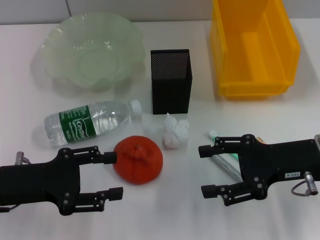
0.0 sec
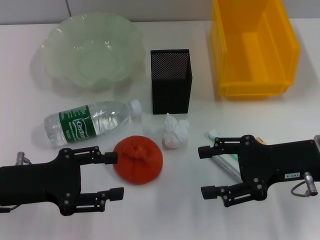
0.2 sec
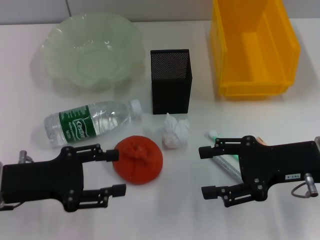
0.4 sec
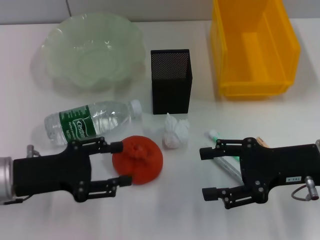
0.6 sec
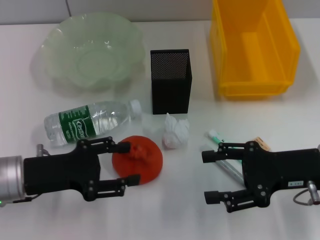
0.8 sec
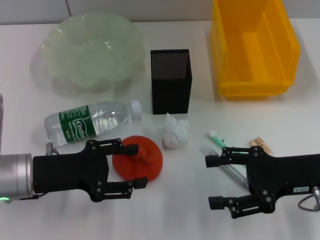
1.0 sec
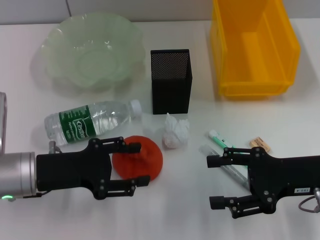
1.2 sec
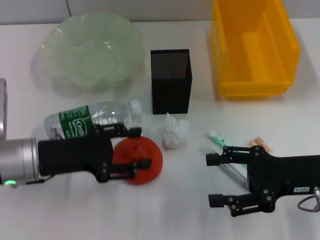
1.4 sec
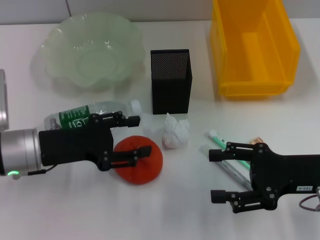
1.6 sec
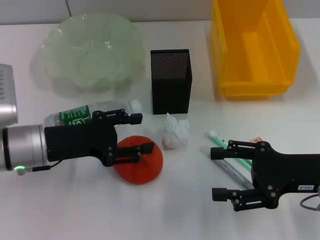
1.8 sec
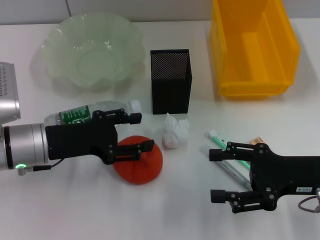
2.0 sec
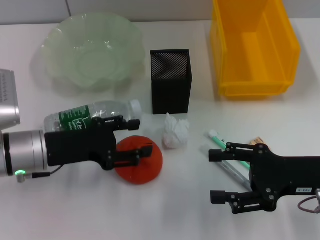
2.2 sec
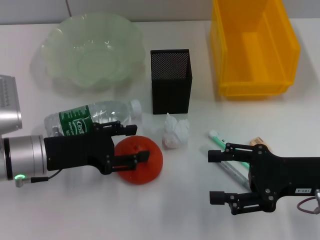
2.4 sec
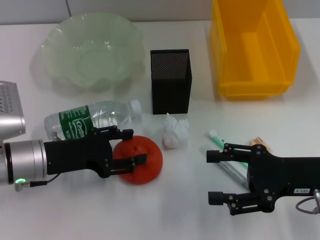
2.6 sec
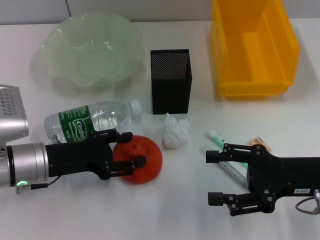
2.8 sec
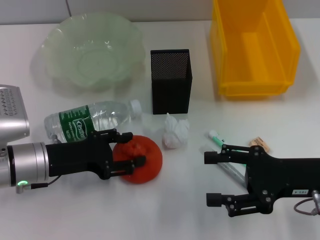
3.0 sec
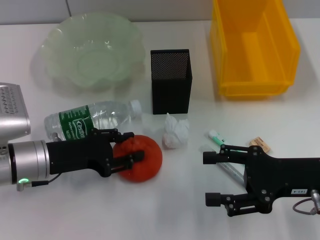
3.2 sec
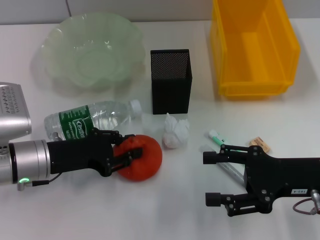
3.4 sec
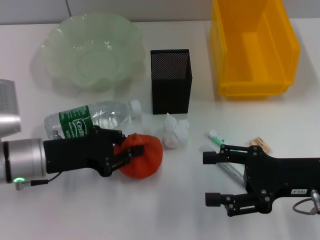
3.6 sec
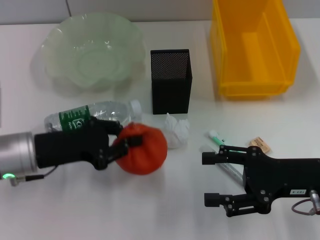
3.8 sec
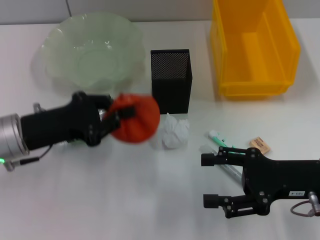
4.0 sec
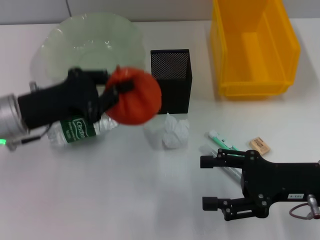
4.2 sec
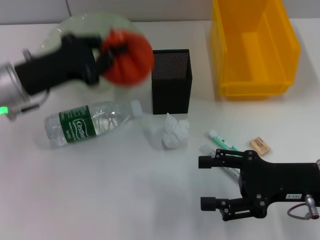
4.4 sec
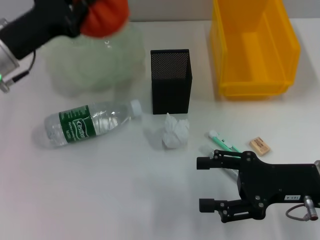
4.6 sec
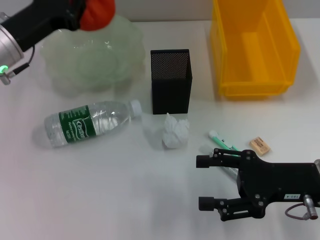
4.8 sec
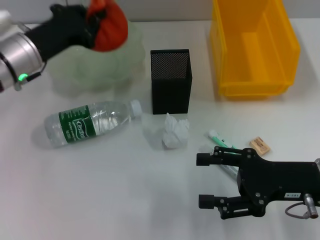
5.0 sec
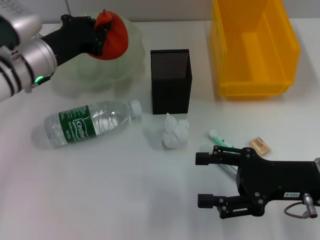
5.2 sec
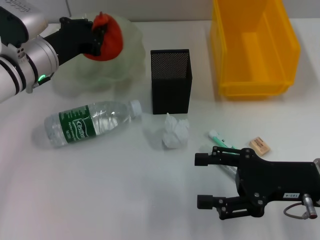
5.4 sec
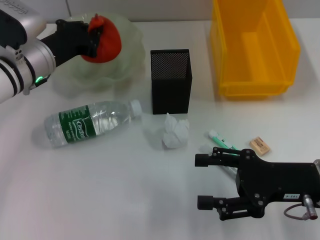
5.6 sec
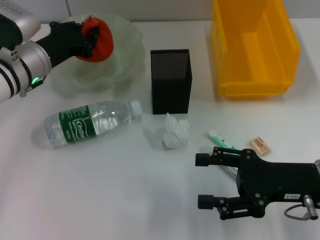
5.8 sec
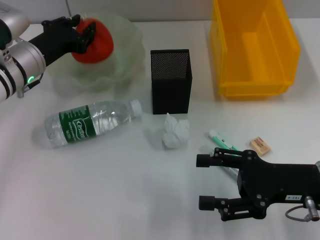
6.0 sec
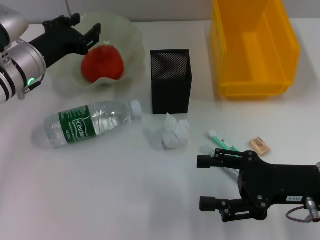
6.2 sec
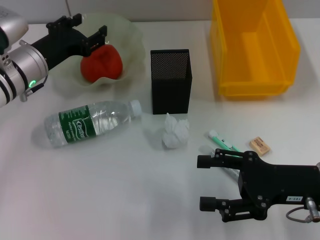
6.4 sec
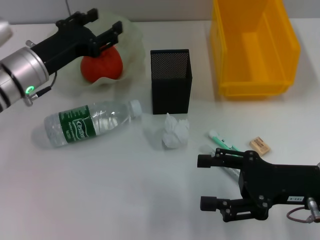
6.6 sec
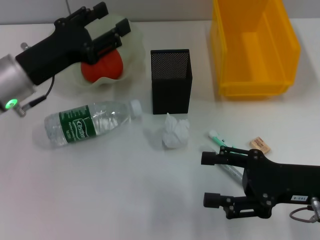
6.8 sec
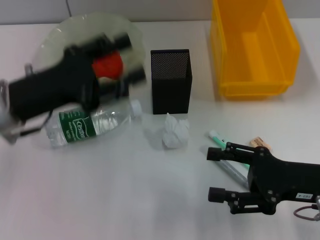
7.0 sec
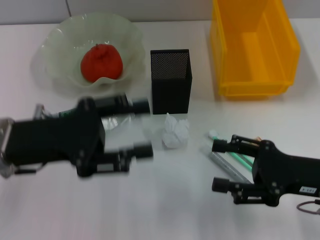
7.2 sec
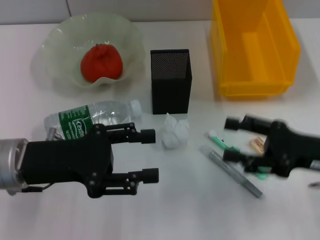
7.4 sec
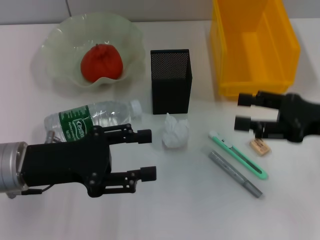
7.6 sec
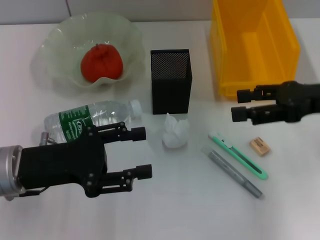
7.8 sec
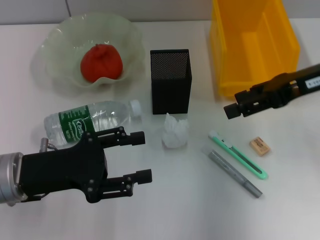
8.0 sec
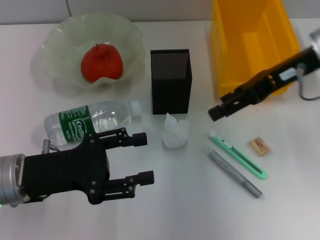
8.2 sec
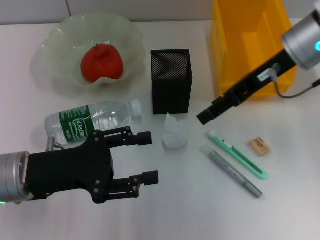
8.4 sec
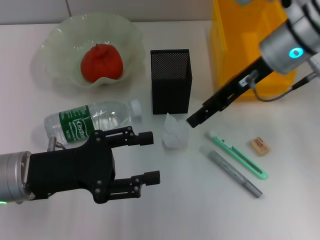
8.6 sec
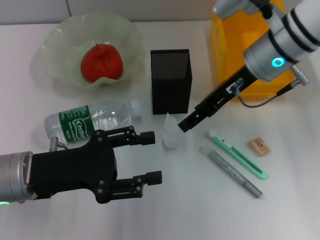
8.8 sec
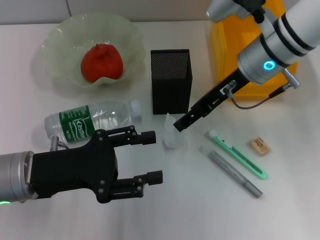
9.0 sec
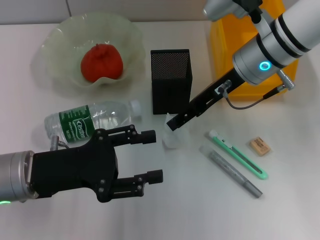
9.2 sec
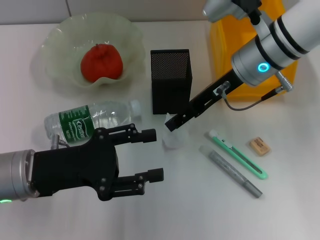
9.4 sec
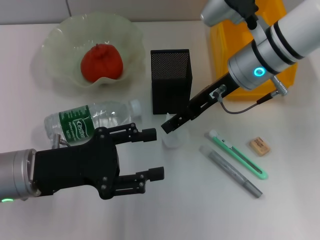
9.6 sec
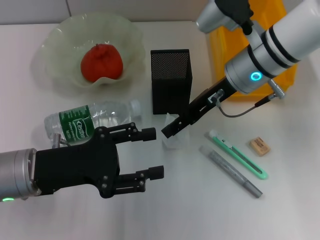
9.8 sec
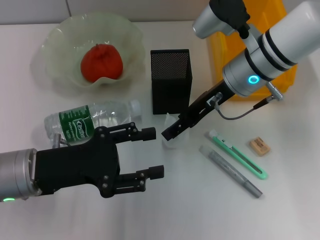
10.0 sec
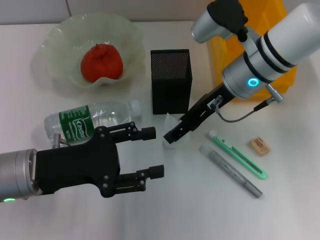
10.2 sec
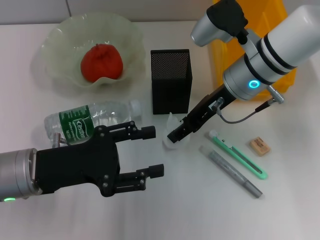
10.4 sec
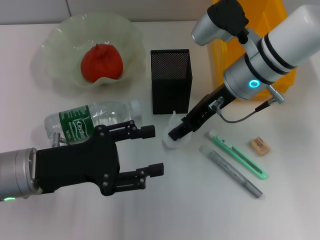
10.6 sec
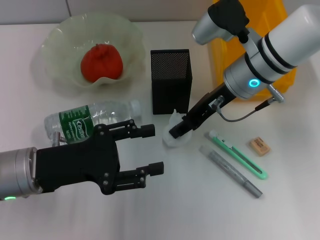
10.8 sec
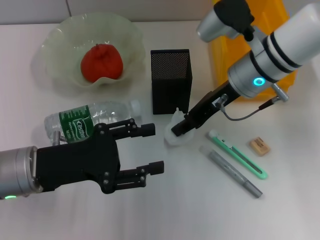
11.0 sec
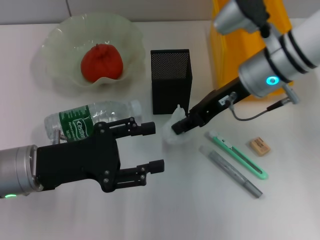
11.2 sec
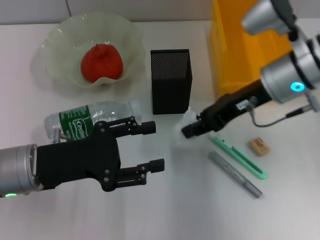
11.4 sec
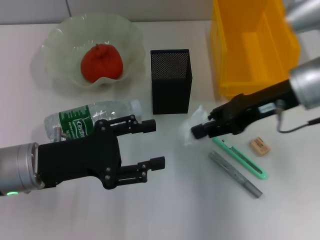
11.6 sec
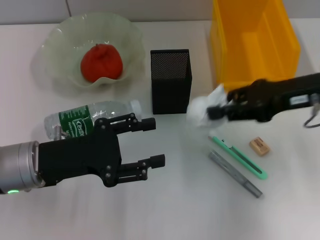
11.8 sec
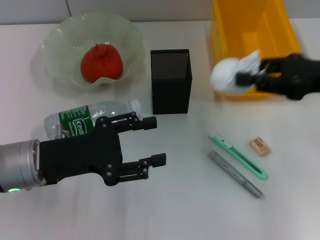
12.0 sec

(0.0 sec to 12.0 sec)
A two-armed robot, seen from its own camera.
Step, 0.0 sec - 3.4 sec: Grab the orange with the left hand.
Step, 3.6 sec - 6.4 sec: Place the orange into the fruit bowl with the left hand.
Step, 6.6 sec - 10.8 sec: Grab the paper ball with the right hand.
0.0 sec - 1.6 sec: The left gripper moves about 5 cm.
1.6 sec - 3.0 sec: There are only small adjustments of the grippers.
3.0 sec - 4.4 sec: The left gripper travels upward and forward by about 10 cm, and closes.
4.4 sec - 6.0 sec: The left gripper is displaced forward by about 5 cm.
6.0 sec - 7.6 sec: The left gripper heads backward, covering approximately 15 cm, and opens its fingers, while the right gripper is displaced upward by about 5 cm.
7.6 sec - 9.0 sec: The right gripper heads to the left and forward, covering about 20 cm.
9.0 sec - 10.4 sec: The grippers move only a little.
10.4 sec - 12.0 sec: The right gripper moves to the right and backward, approximately 20 cm, and closes its fingers.

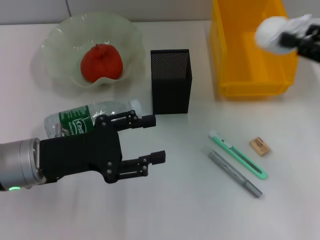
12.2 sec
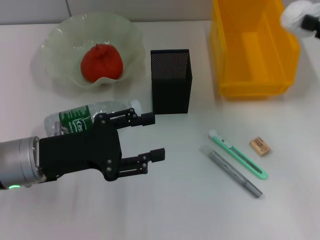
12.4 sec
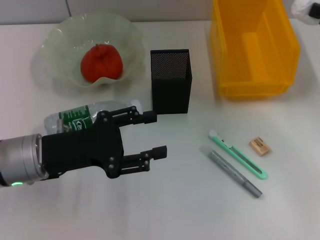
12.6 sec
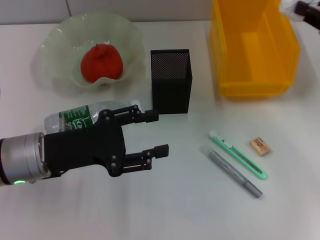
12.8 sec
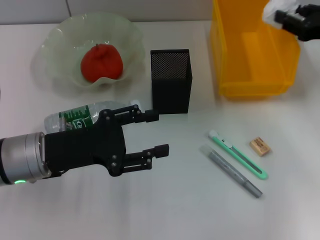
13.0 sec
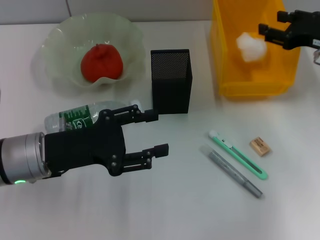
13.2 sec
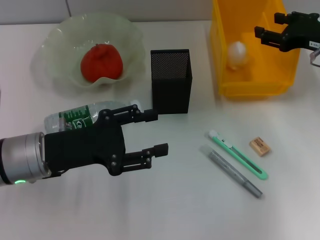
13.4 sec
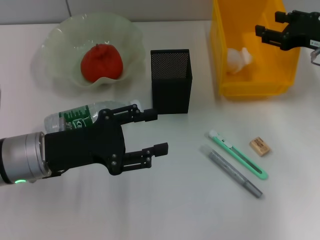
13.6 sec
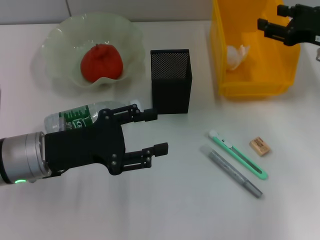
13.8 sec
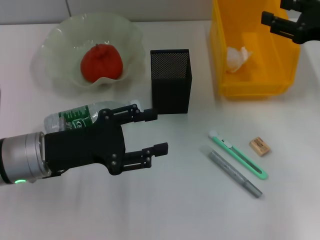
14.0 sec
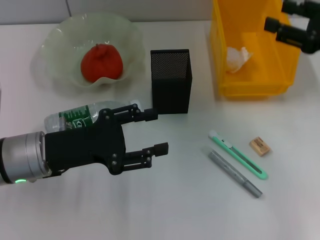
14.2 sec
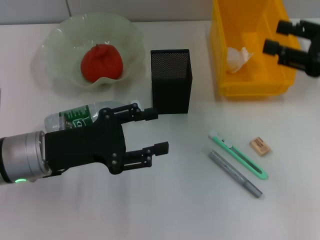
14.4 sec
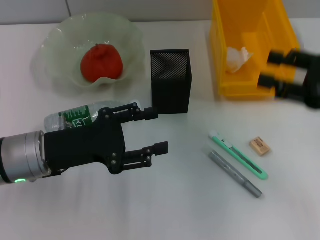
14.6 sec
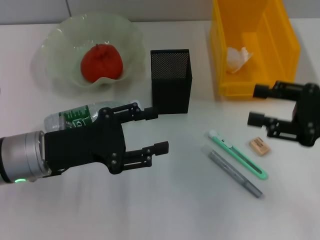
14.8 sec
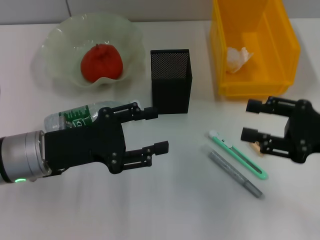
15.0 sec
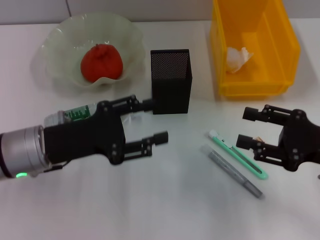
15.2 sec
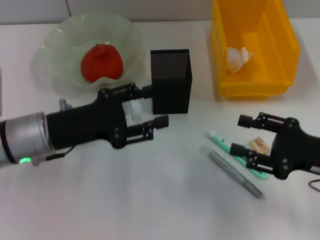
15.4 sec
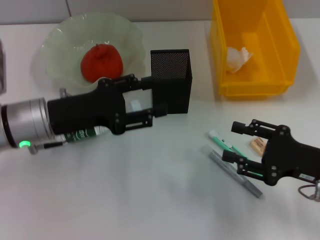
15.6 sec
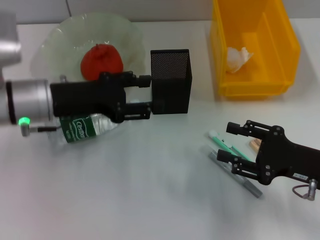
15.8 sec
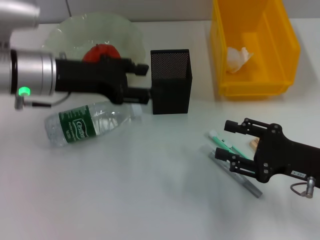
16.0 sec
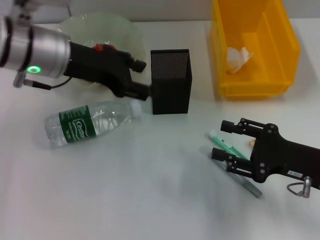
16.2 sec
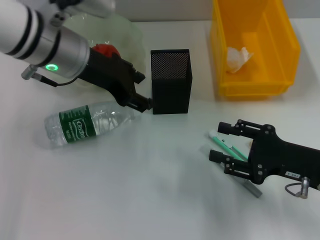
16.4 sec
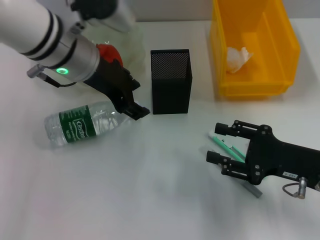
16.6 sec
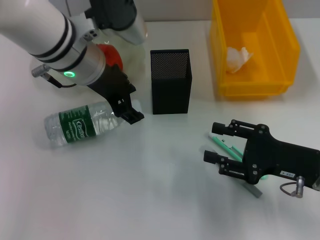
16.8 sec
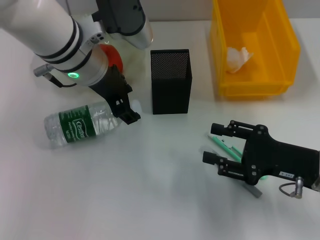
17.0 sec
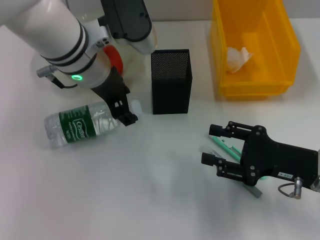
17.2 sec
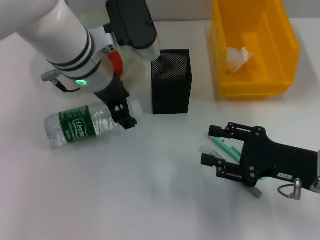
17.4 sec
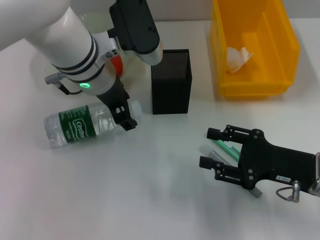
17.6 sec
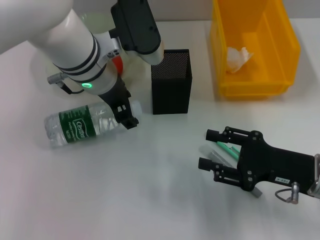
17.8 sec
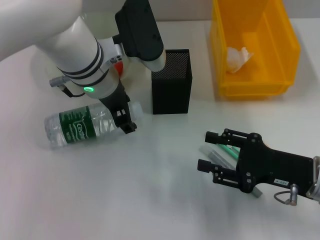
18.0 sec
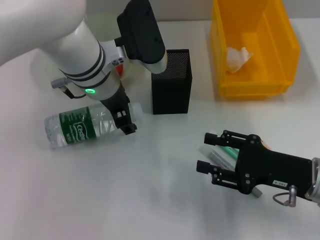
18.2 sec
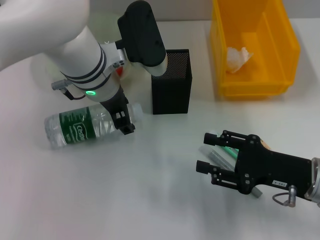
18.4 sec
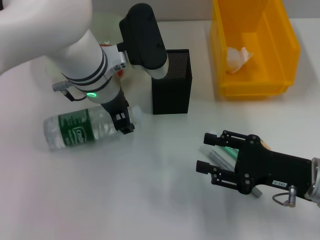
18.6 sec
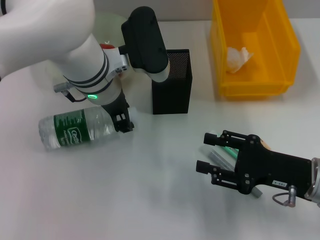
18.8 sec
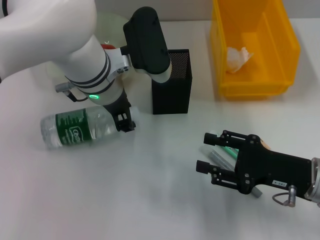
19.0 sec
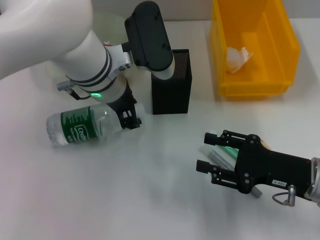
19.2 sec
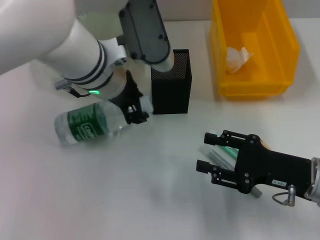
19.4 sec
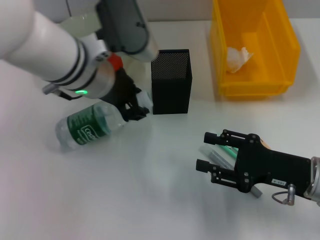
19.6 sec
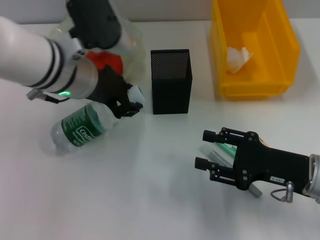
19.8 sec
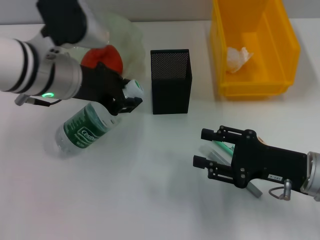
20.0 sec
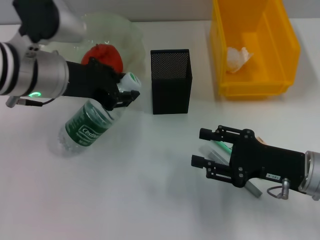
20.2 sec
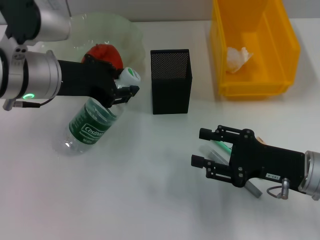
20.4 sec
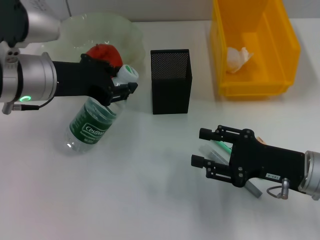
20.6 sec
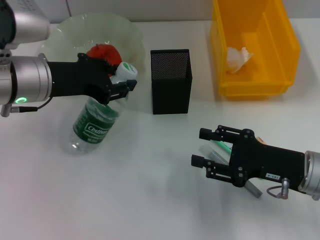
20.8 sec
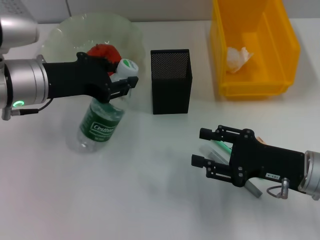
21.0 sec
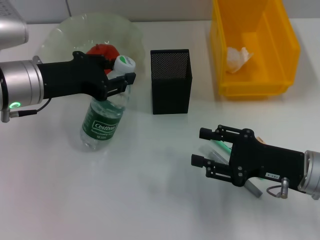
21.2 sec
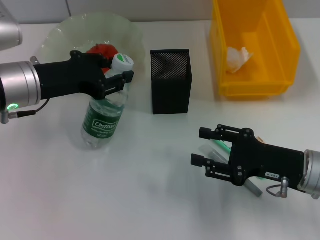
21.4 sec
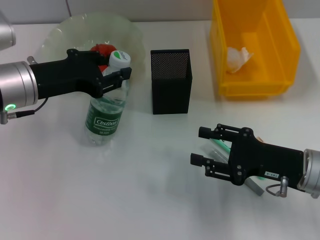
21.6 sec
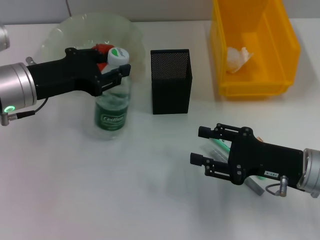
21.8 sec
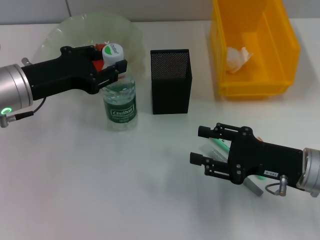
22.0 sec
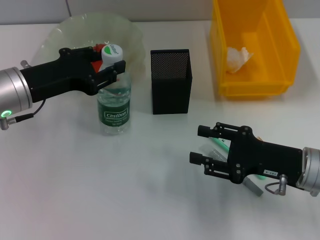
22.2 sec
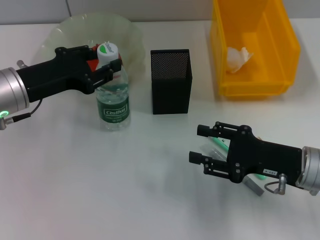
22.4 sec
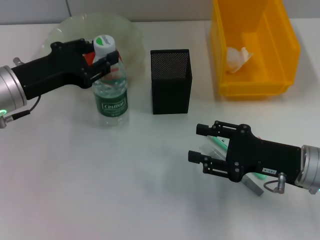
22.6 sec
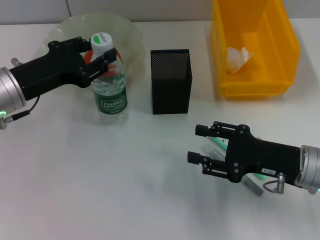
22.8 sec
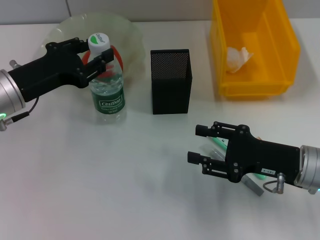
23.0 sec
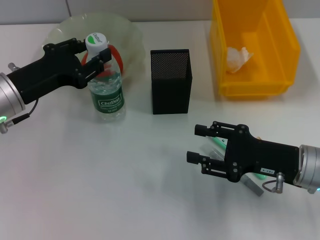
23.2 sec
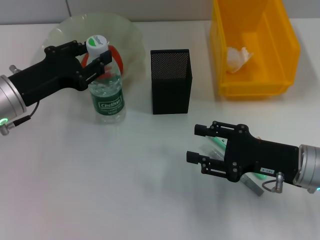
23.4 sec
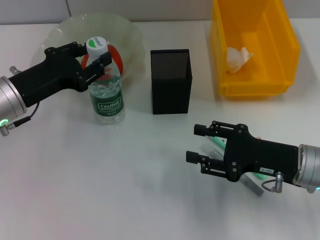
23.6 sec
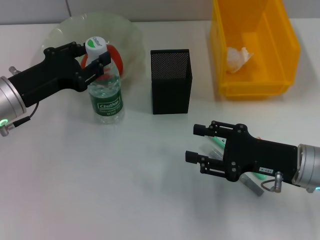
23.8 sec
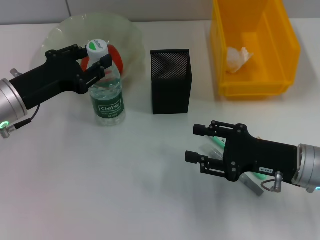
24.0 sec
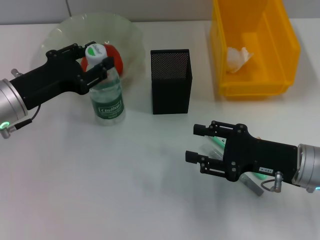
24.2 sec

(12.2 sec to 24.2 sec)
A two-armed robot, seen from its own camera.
Step, 12.2 sec - 13.8 sec: Place the paper ball into the trash can with the right hand.
Step, 14.0 sec - 19.0 sec: Grab the water bottle with the left hand.
12.2 sec - 13.8 sec: The right gripper shifts approximately 10 cm forward, and opens its fingers.
13.8 sec - 15.2 sec: The right gripper travels backward and downward by about 15 cm.
15.2 sec - 16.6 sec: The right gripper moves about 5 cm. The left gripper goes approximately 15 cm upward, forward and to the right.
16.6 sec - 18.2 sec: The left gripper moves about 5 cm.
18.2 sec - 19.8 sec: The left gripper ends up roughly 5 cm from where it was, and closes.
19.8 sec - 21.2 sec: The left gripper heads to the left, covering some 10 cm.
21.2 sec - 22.6 sec: The grippers move only a little.
22.6 sec - 24.2 sec: The grippers move only a little.
